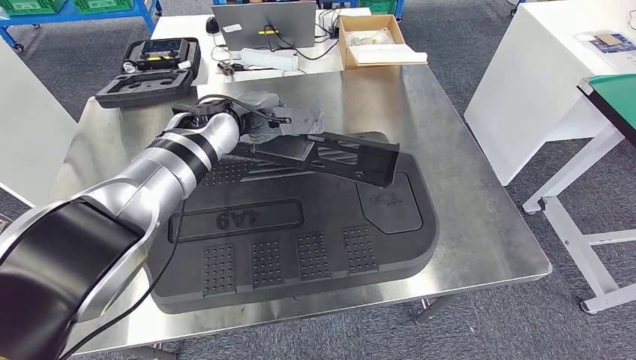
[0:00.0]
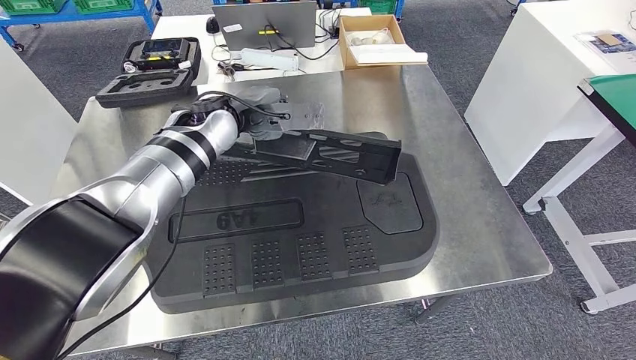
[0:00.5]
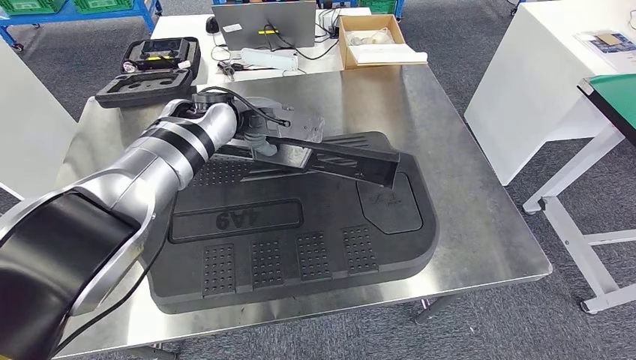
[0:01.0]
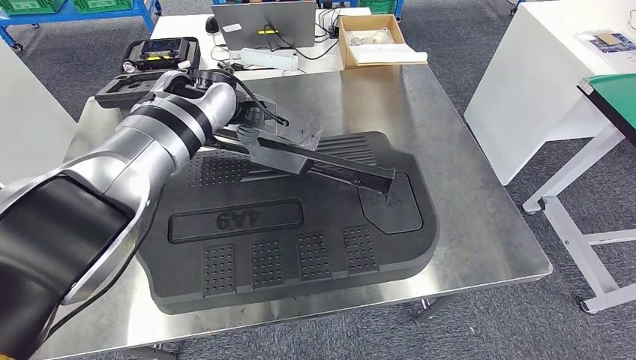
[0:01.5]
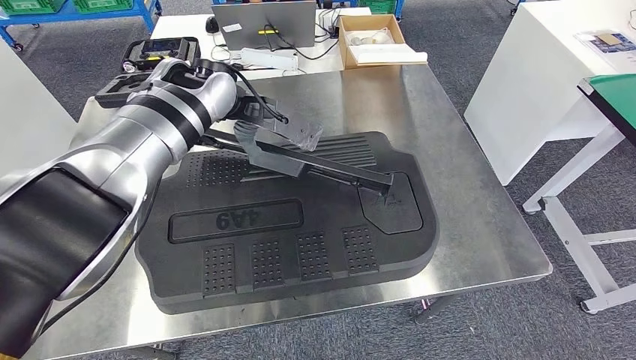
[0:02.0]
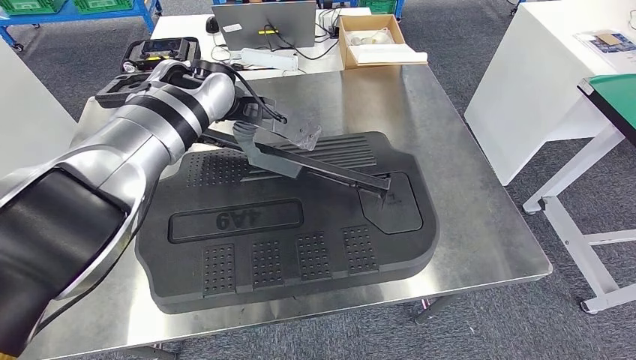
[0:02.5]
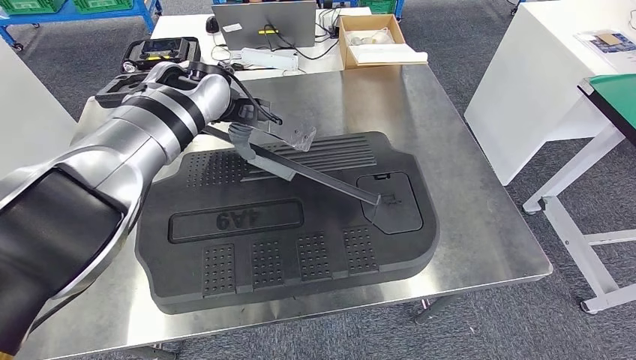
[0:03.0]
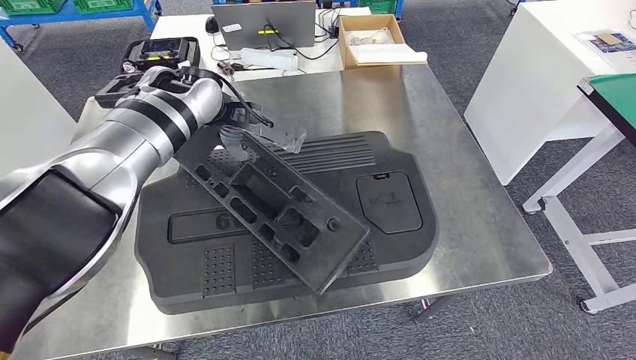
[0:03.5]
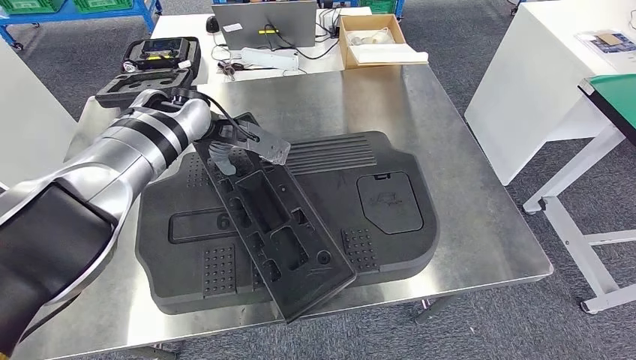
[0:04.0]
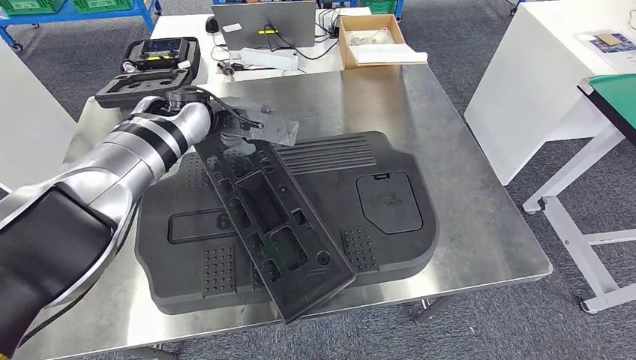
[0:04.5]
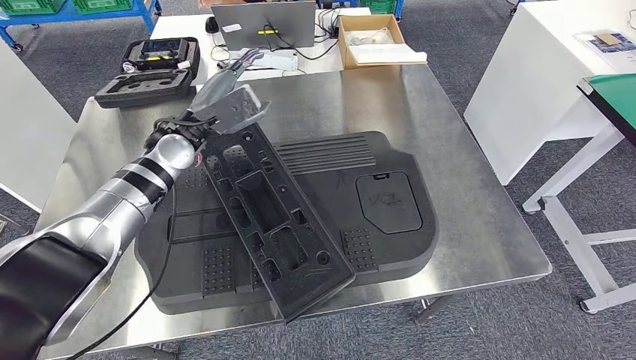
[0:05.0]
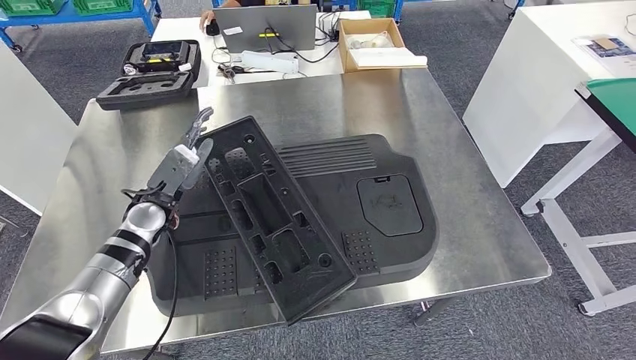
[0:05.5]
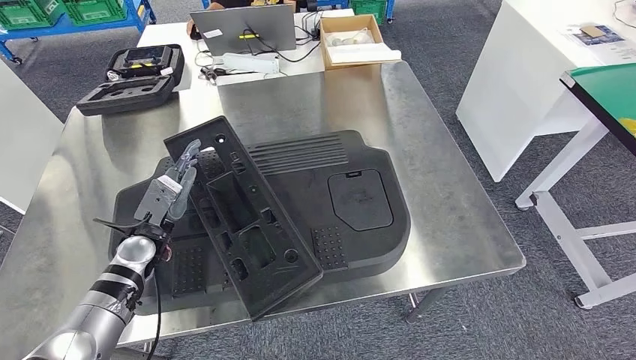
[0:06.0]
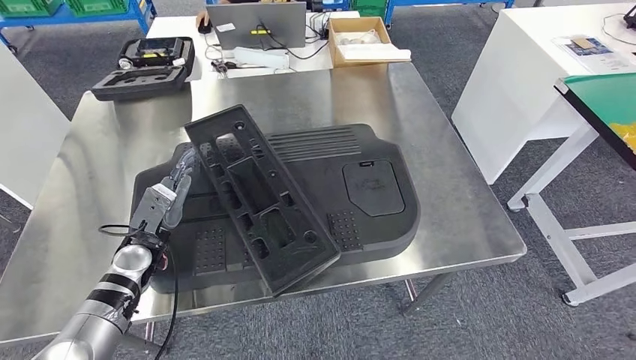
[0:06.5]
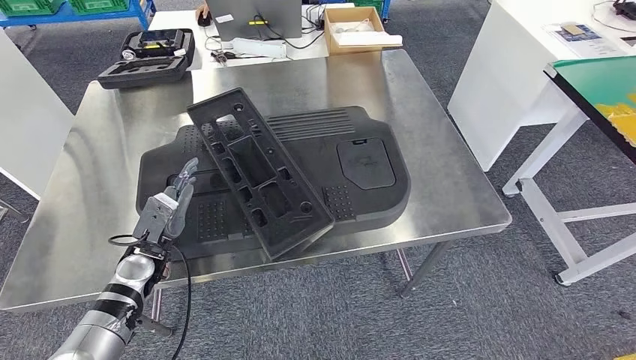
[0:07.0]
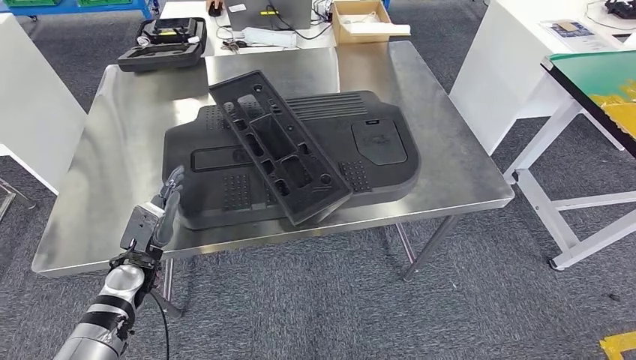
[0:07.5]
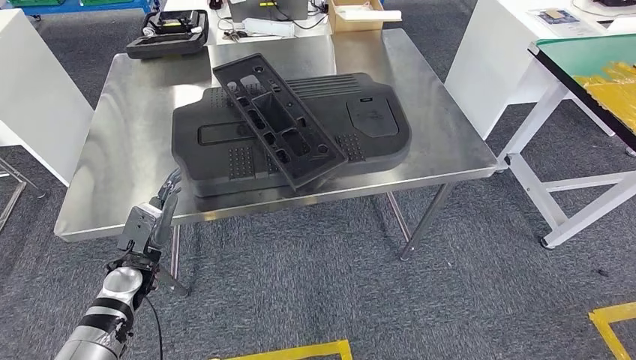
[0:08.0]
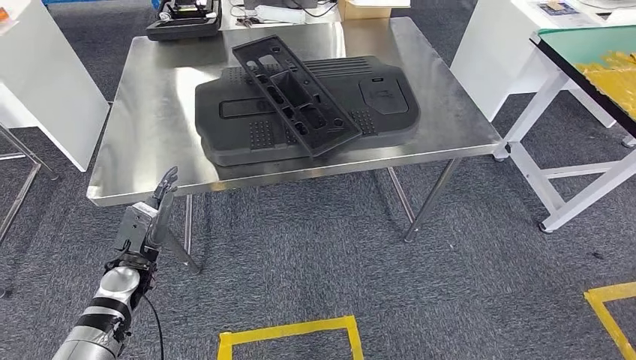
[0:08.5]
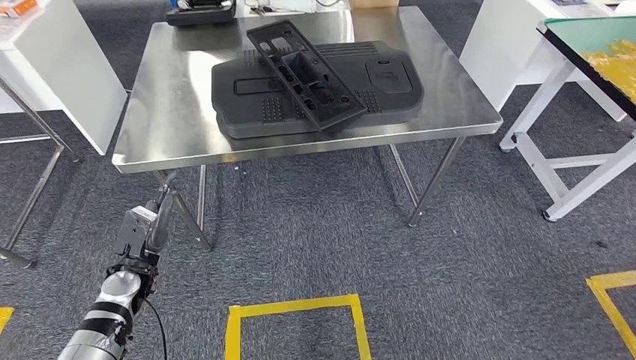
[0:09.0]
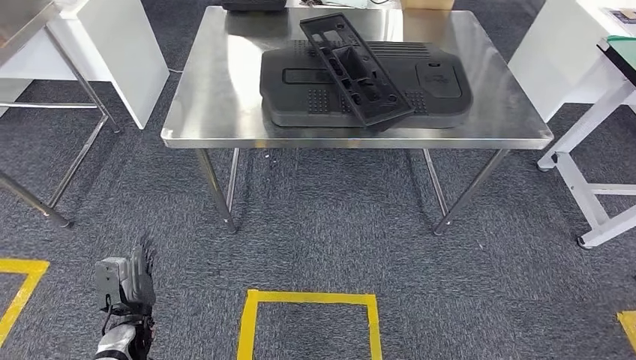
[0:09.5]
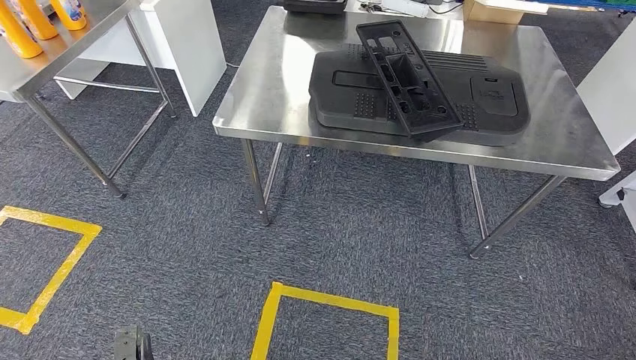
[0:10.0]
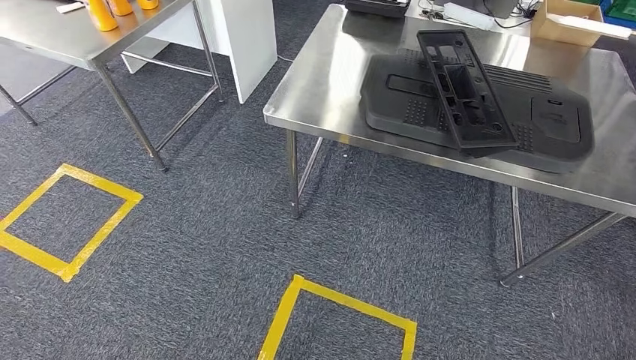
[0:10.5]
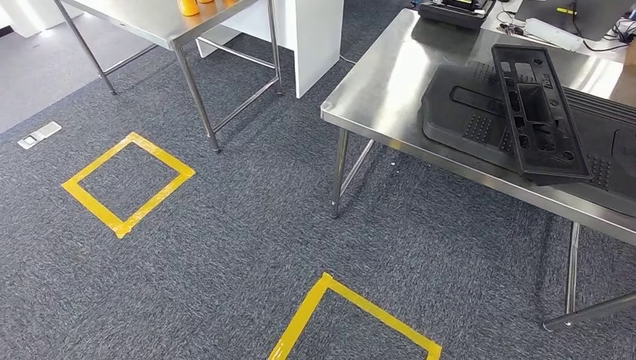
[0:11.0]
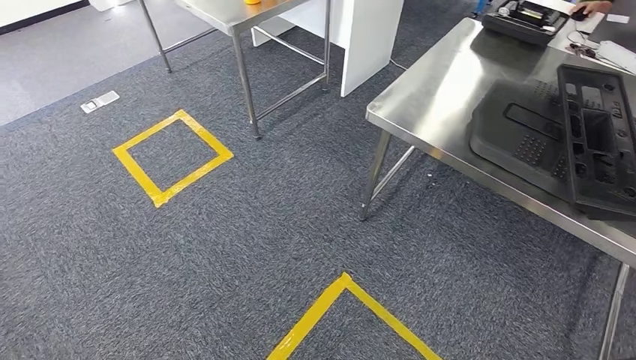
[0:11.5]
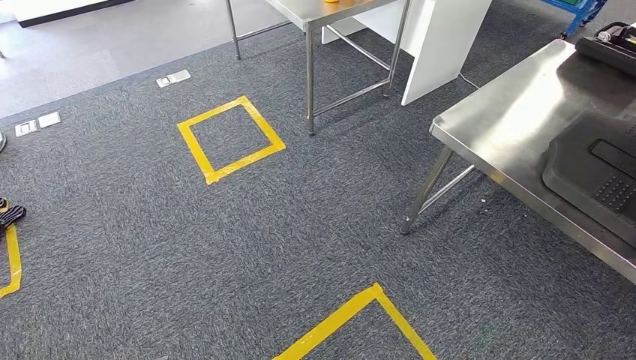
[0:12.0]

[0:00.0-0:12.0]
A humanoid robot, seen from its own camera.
Step, 0:00.0 to 0:06.5: Insert the large material into the corresponding slot on the workbench.
0:00.0 to 0:02.0: The left hand heads upward, covering roughly 5 cm.
0:02.0 to 0:04.0: The left hand heads downward and to the left, covering roughly 10 cm.

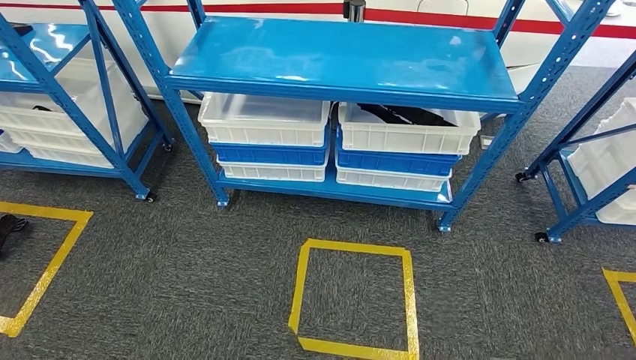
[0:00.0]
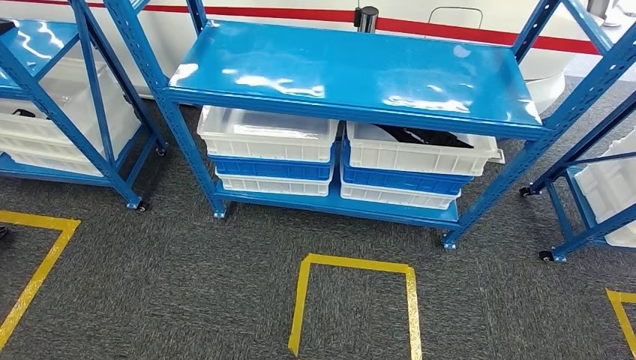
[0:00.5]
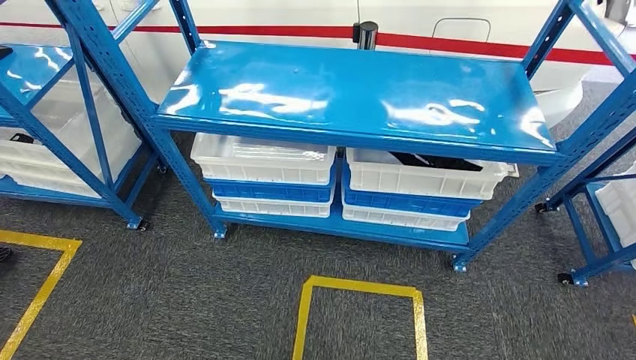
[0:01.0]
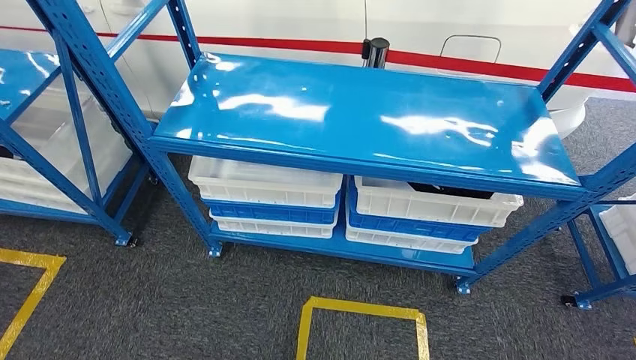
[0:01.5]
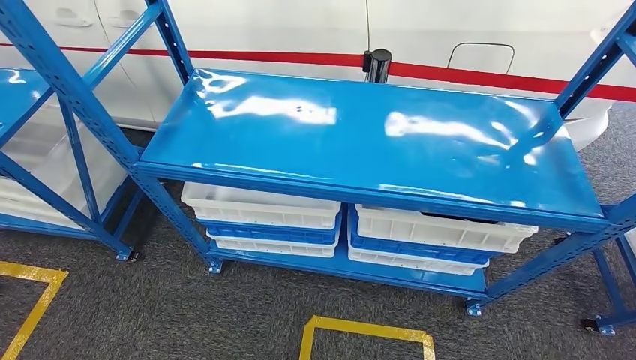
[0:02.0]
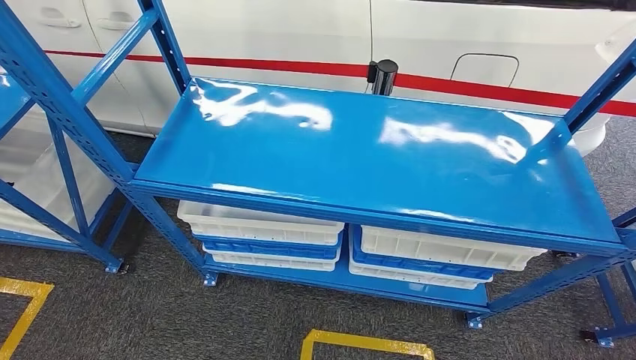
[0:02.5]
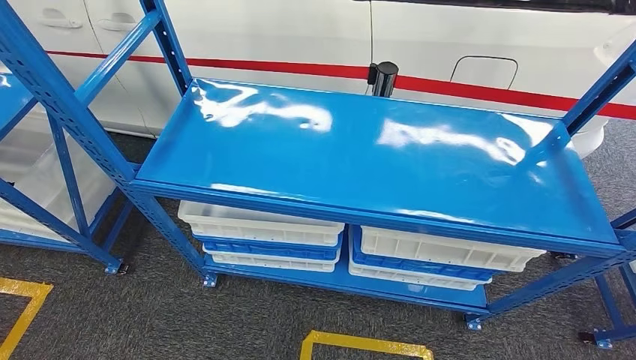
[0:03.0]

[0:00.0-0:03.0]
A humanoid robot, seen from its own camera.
Step, 0:00.0 to 0:03.0: Return to the initial position at the shelf.
